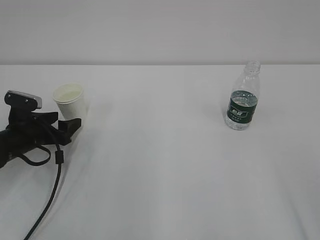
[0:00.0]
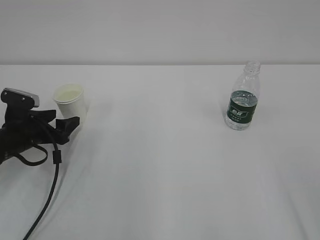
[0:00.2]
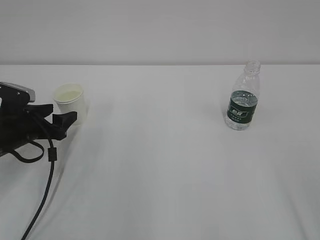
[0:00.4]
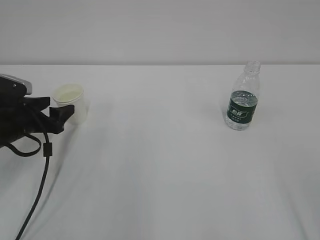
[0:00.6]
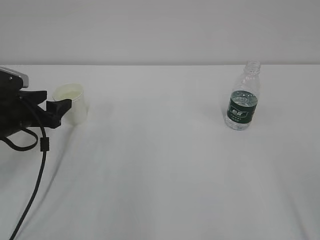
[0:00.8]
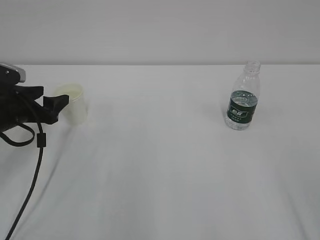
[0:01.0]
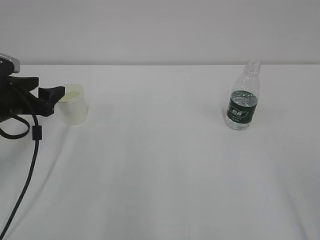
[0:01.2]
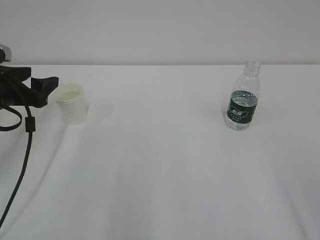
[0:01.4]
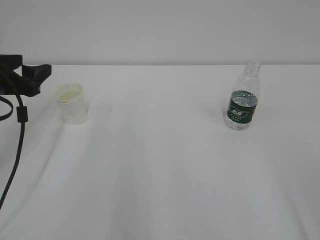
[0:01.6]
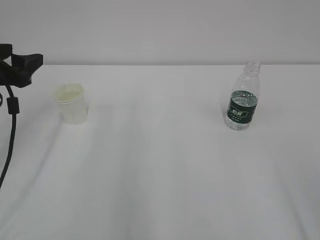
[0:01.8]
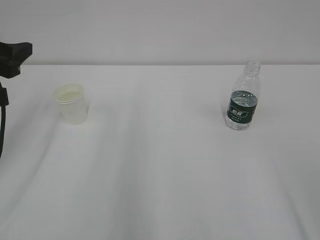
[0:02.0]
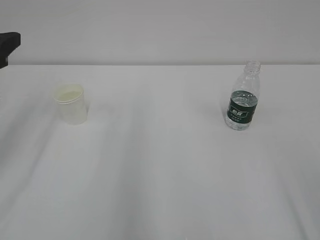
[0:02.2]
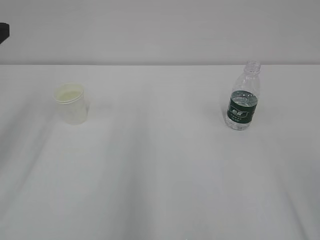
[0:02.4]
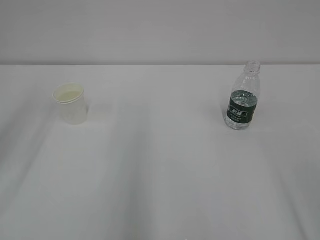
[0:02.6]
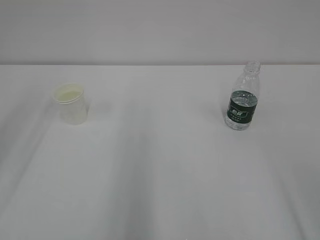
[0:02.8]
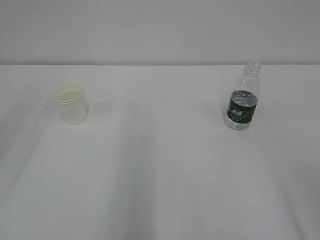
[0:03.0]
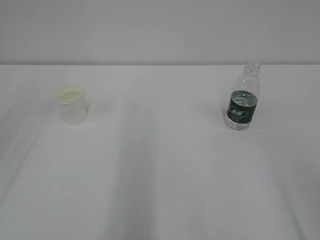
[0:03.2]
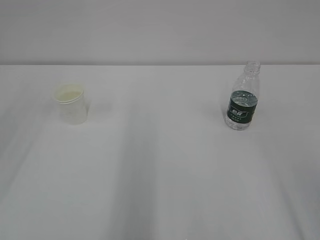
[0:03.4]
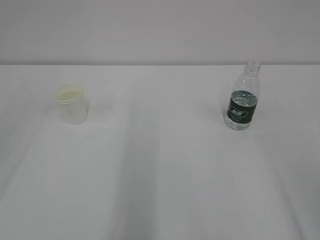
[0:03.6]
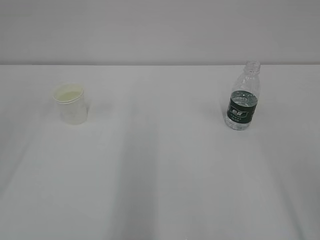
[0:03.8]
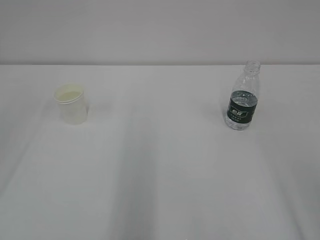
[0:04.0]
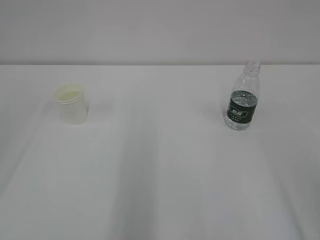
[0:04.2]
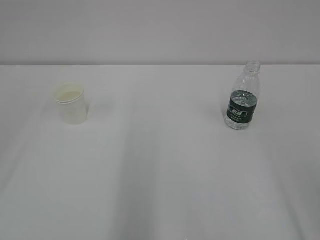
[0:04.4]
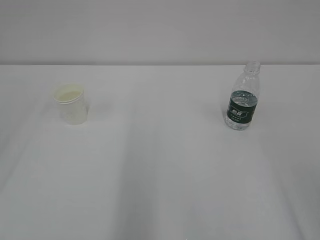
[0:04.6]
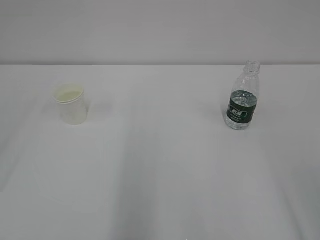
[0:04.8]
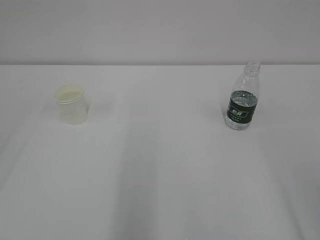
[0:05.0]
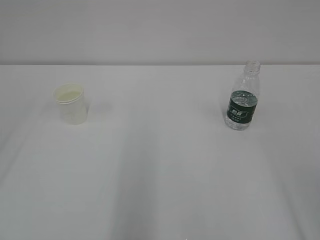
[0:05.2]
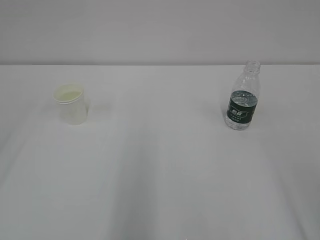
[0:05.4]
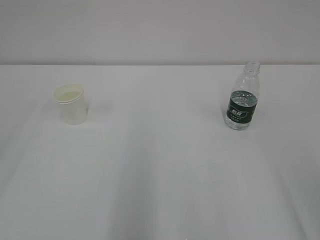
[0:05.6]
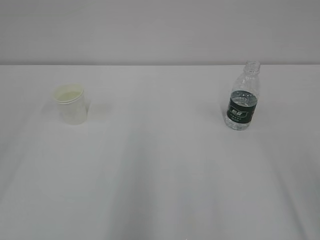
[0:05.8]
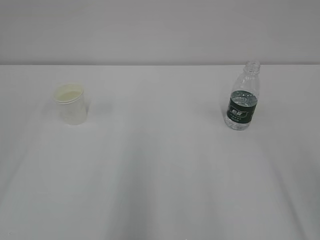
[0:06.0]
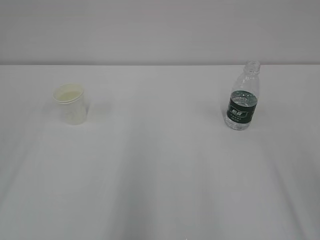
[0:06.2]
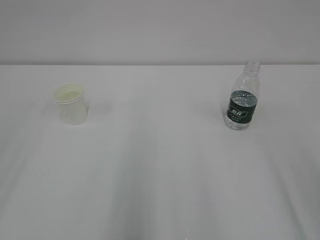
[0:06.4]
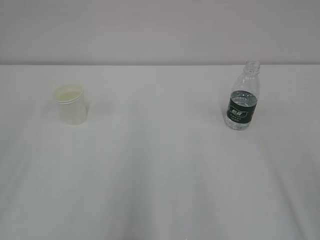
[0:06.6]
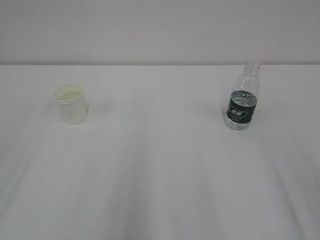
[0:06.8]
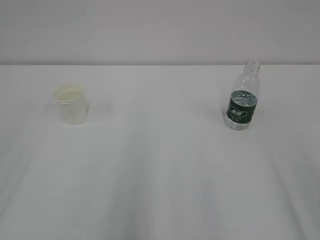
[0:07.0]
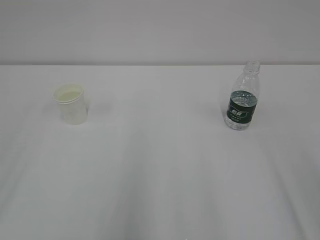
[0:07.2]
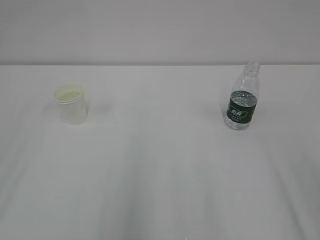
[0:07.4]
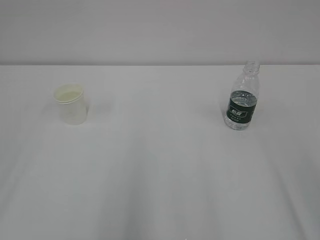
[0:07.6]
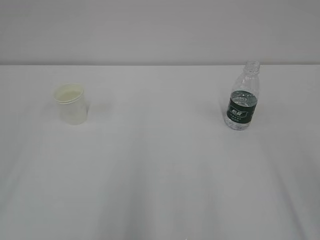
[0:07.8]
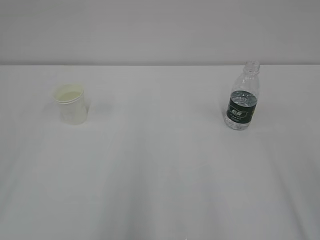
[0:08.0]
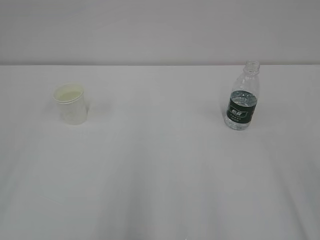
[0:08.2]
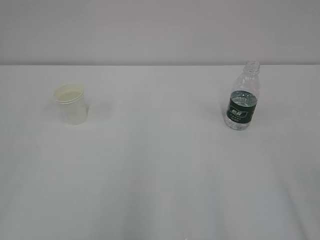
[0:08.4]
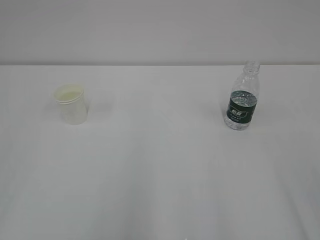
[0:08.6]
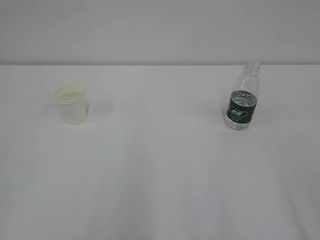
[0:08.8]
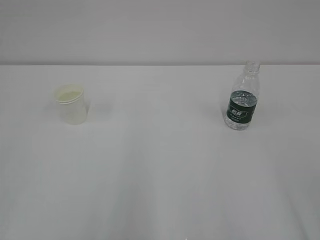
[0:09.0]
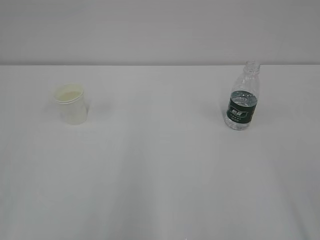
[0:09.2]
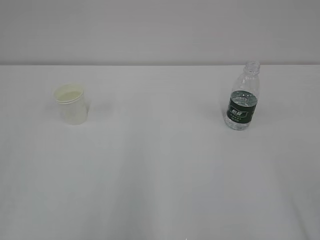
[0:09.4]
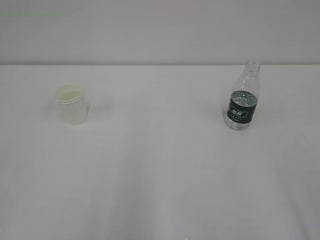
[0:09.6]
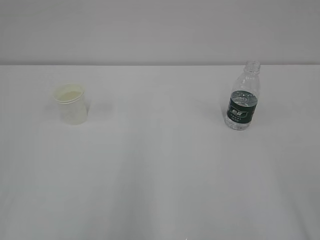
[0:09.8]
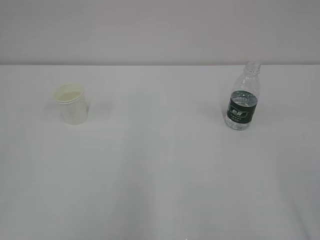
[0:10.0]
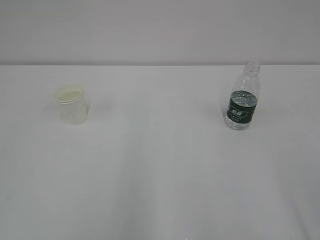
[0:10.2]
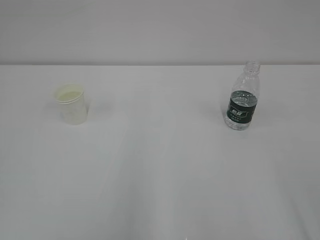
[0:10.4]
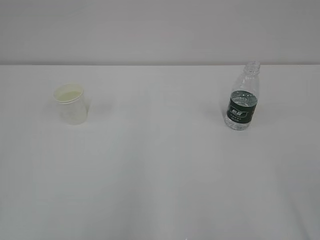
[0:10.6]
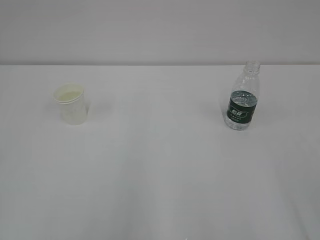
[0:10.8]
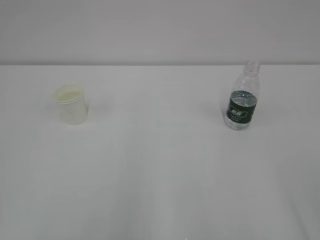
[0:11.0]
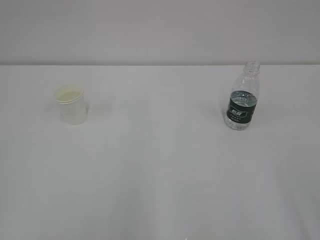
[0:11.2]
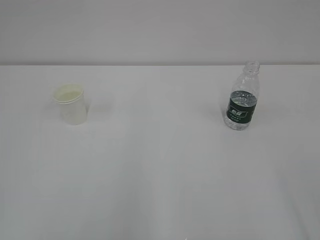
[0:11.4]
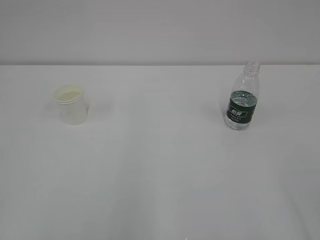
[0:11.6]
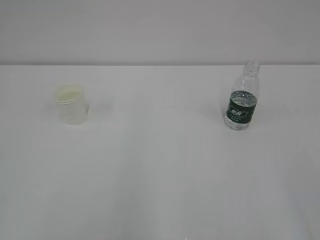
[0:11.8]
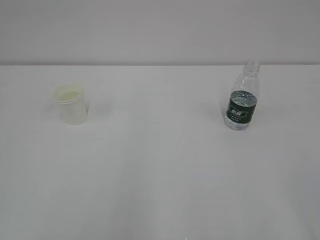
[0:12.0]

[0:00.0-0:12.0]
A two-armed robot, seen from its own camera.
0:00.0 to 0:01.6: The left gripper heads upward, covering roughly 15 cm.
0:01.6 to 0:03.0: The left gripper heads upward and backward, covering roughly 15 cm.

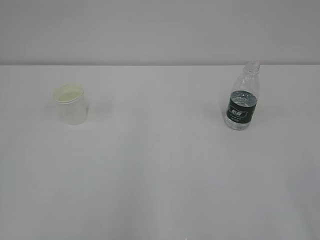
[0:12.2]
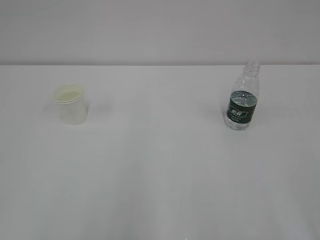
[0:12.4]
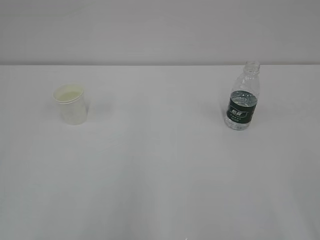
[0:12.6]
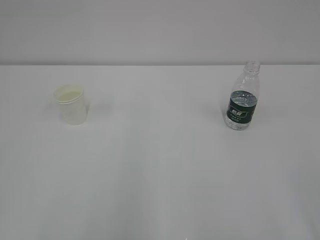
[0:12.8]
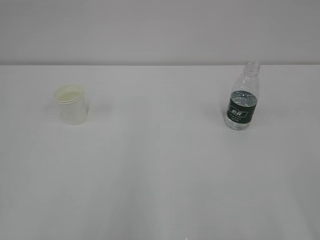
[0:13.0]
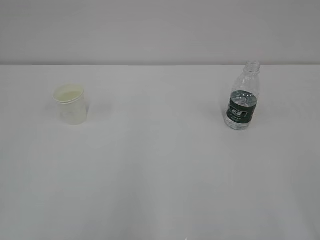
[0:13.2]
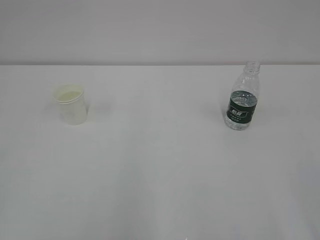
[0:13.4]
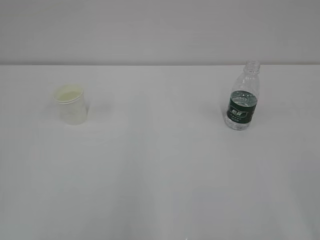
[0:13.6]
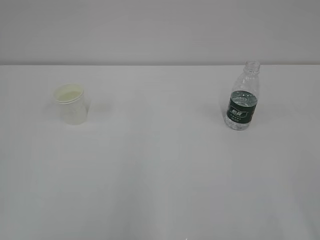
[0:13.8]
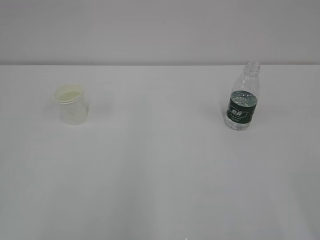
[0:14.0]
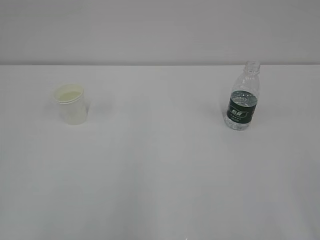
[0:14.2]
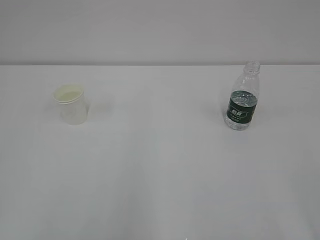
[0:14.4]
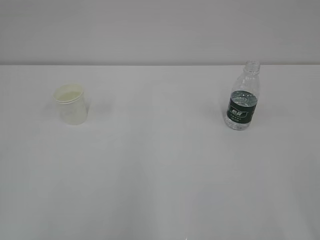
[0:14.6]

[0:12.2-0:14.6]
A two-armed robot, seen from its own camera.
0:12.2 to 0:14.6: The two grippers keep their place.
